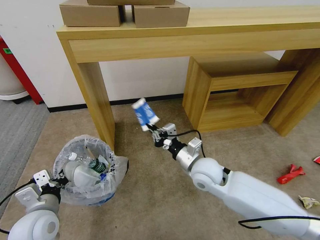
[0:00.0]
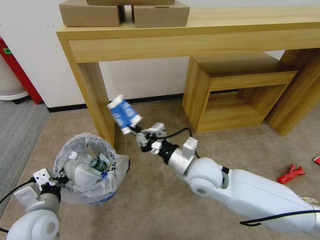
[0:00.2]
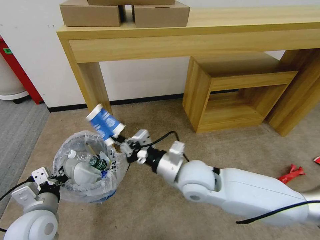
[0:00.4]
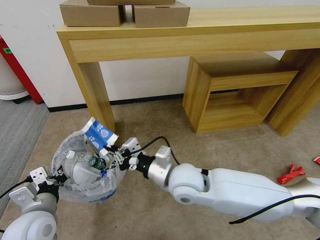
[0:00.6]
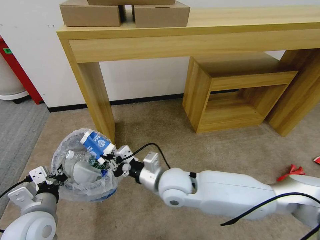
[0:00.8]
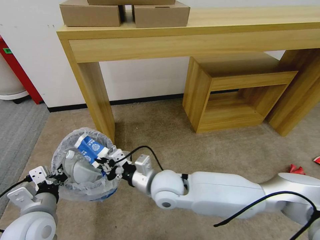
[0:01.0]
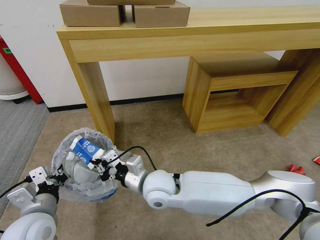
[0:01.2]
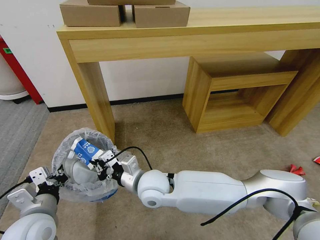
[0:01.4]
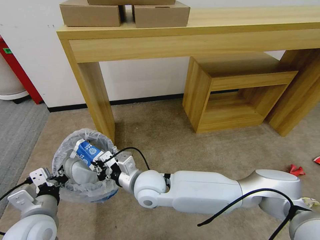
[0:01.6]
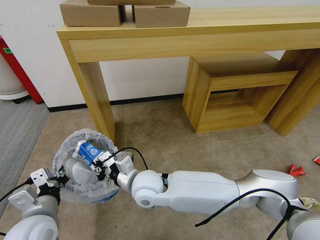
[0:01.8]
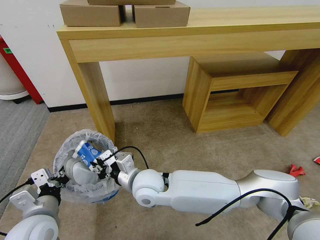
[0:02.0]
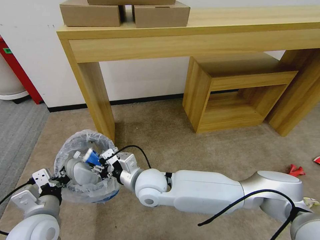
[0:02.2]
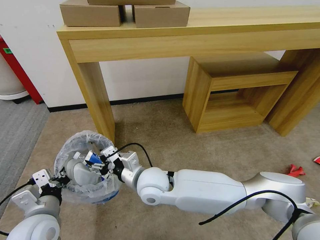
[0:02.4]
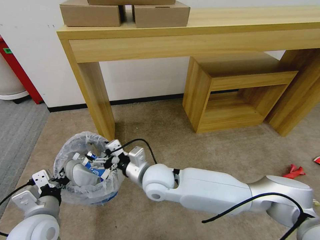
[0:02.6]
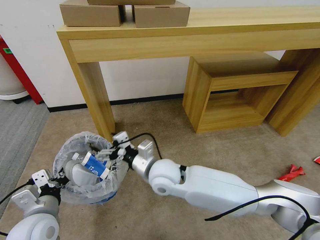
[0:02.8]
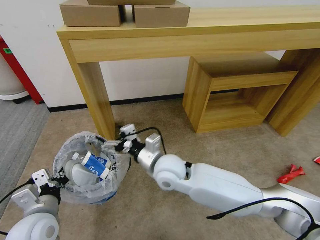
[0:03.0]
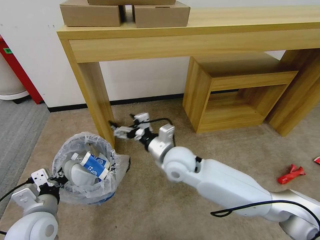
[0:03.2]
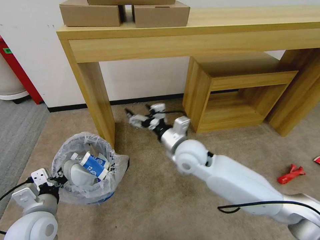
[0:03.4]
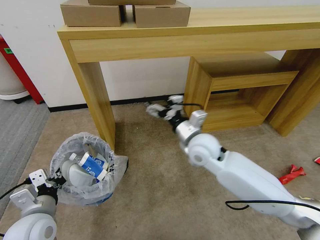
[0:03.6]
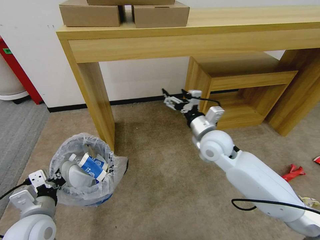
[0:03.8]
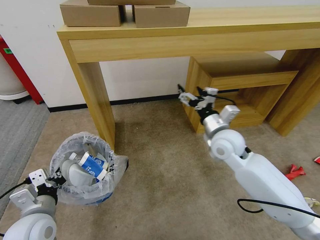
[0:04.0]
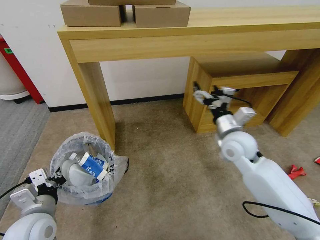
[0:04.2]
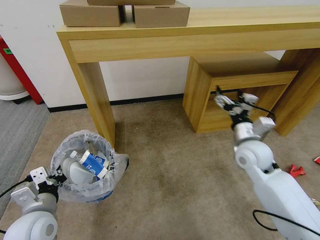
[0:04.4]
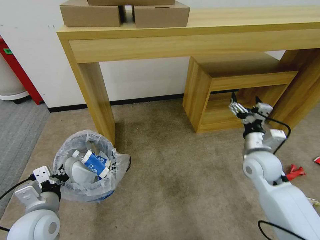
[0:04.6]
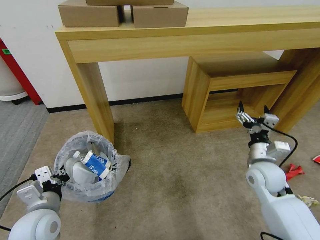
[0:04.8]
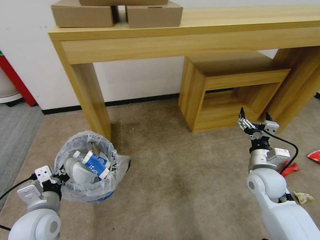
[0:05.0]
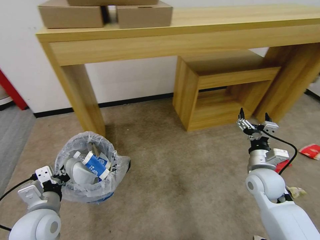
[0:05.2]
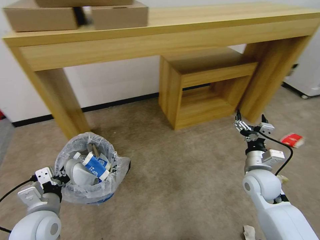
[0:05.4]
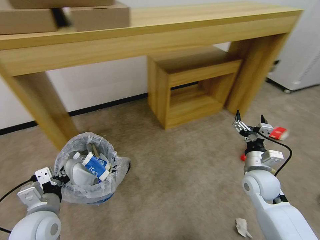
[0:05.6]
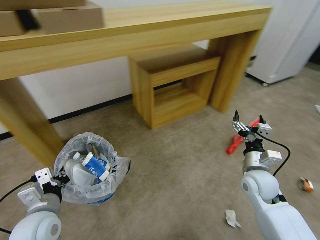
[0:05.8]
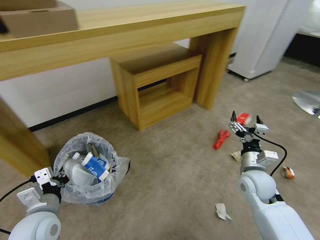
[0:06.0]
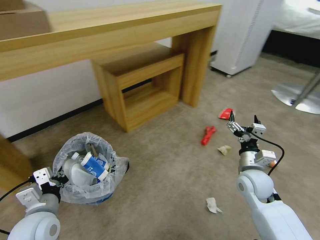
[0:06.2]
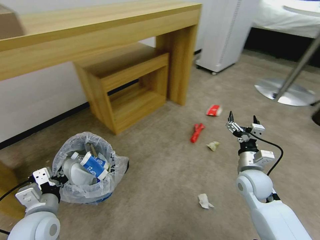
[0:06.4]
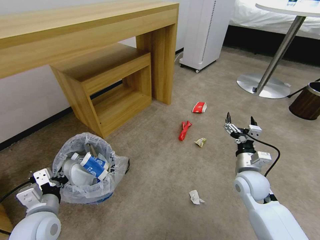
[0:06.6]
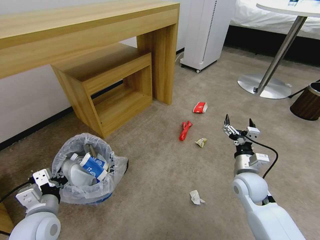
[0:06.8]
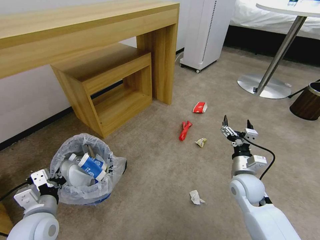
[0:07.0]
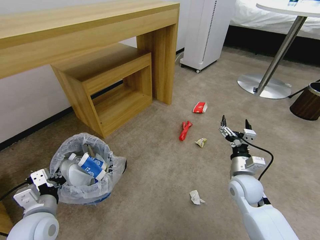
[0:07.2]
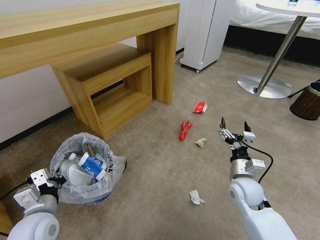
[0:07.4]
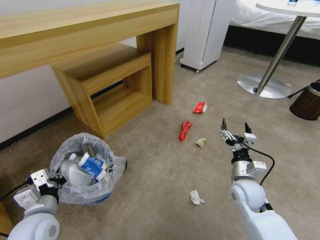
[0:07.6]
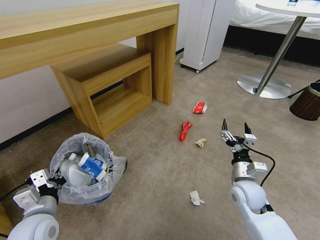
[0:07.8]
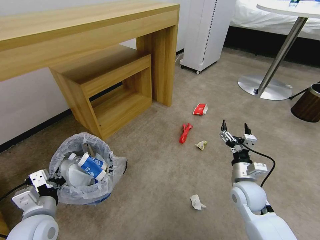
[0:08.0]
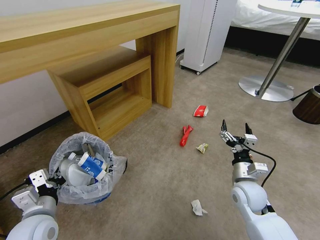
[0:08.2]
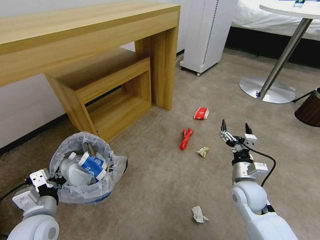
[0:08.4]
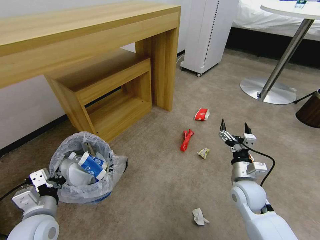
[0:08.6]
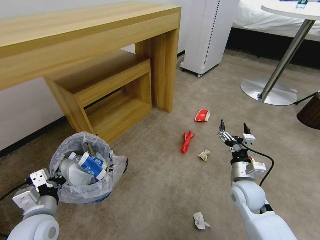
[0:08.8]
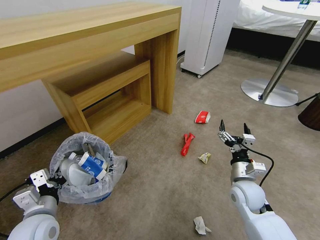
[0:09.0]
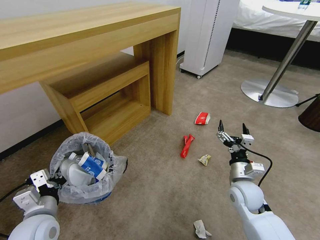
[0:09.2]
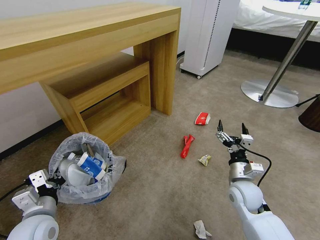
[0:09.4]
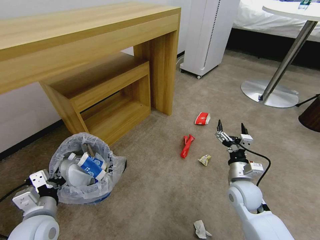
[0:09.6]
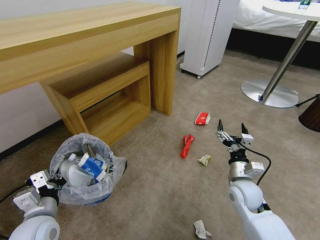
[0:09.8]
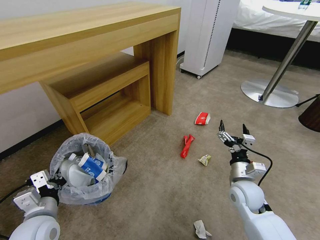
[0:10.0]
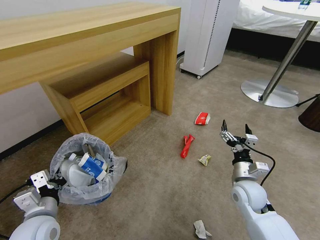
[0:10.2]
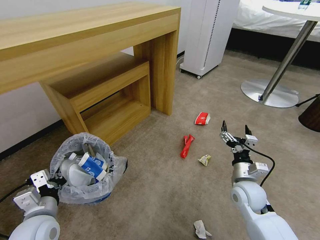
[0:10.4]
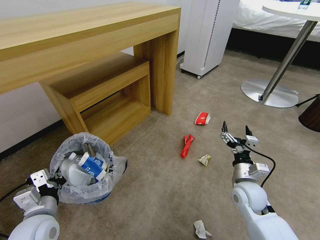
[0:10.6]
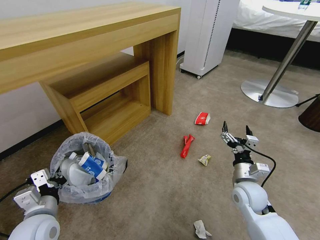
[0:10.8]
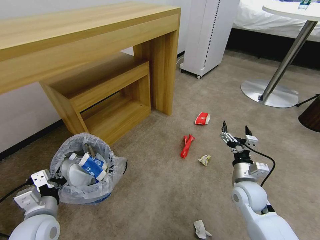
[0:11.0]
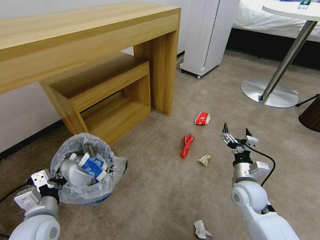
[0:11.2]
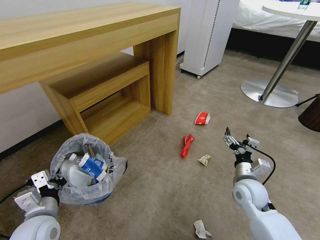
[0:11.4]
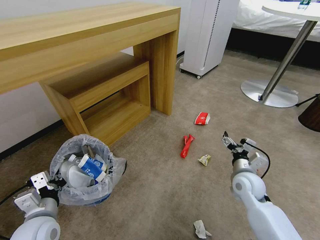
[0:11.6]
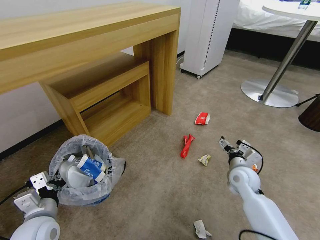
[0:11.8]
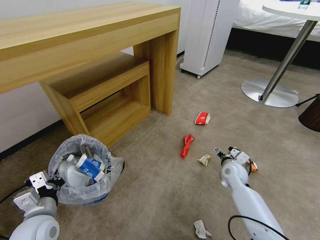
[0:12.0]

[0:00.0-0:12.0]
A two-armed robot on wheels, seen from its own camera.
Task of the whole recording: Pick up the trash bin and place the garbage on the floor into it.
0:00.0 to 0:01.6: The right gripper shifts approximately 15 cm to the left.
0:01.6 to 0:03.0: The right gripper goes roughly 5 cm to the right, and opens.
0:03.0 to 0:04.4: The right gripper shifts some 25 cm to the right.
0:04.4 to 0:06.0: The right gripper heads downward and backward, covering approximately 10 cm.
0:09.0 to 0:10.4: Both grippers stay about where they are.
0:10.4 to 0:12.0: The right gripper goes approximately 10 cm forward.

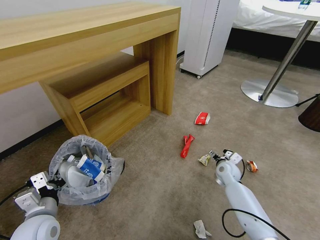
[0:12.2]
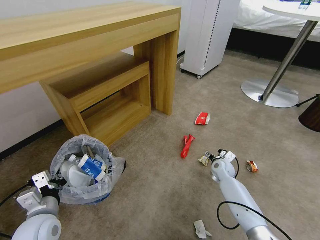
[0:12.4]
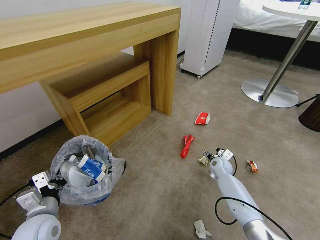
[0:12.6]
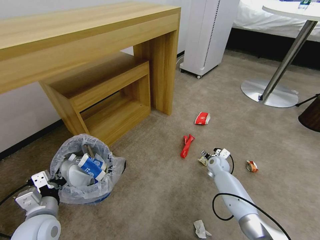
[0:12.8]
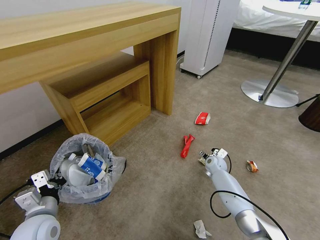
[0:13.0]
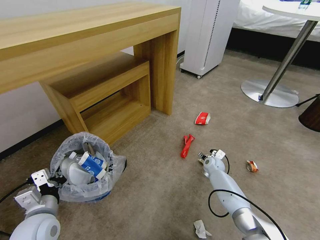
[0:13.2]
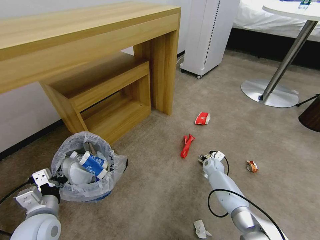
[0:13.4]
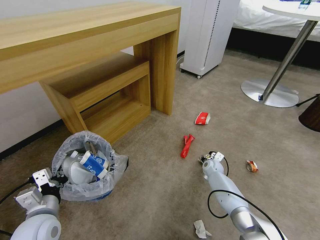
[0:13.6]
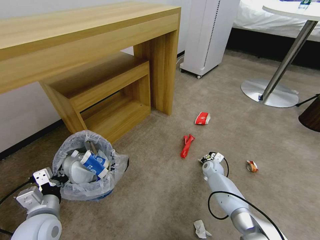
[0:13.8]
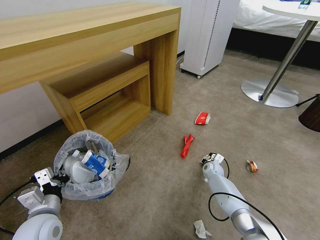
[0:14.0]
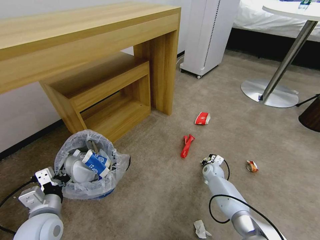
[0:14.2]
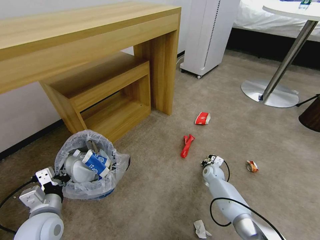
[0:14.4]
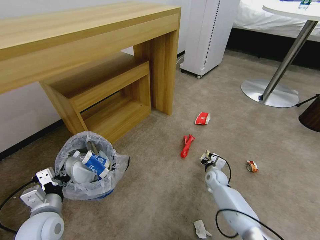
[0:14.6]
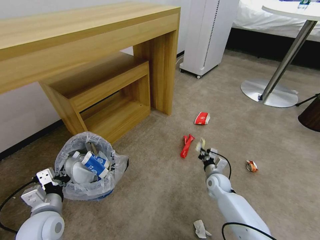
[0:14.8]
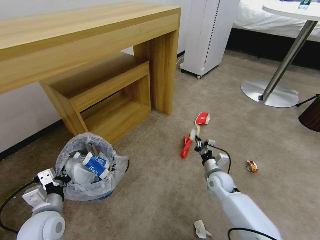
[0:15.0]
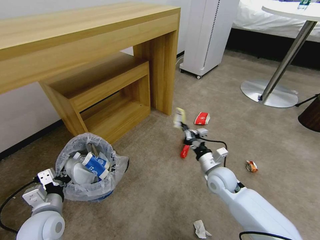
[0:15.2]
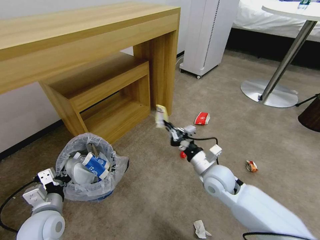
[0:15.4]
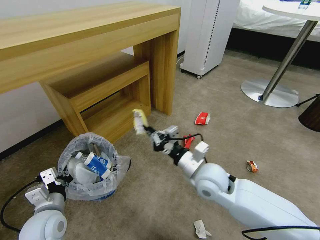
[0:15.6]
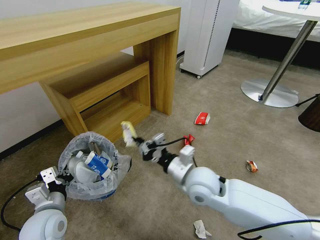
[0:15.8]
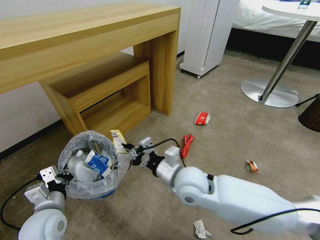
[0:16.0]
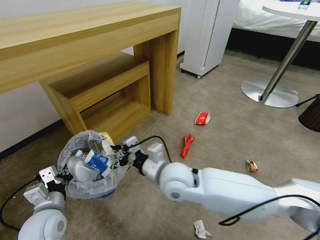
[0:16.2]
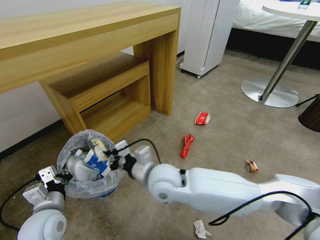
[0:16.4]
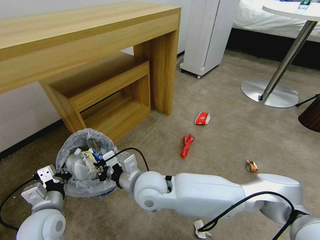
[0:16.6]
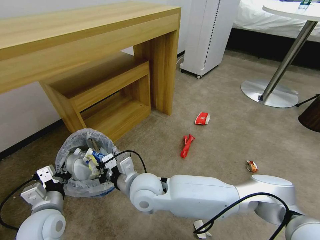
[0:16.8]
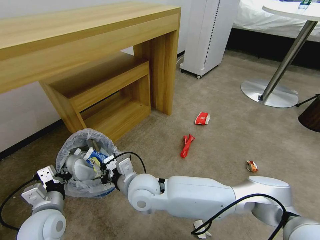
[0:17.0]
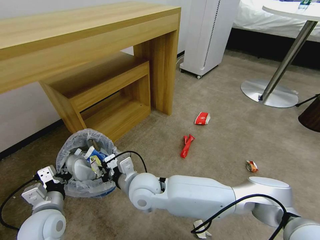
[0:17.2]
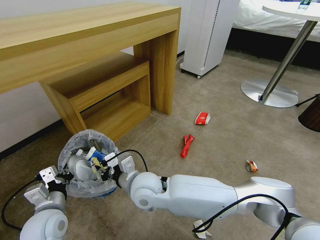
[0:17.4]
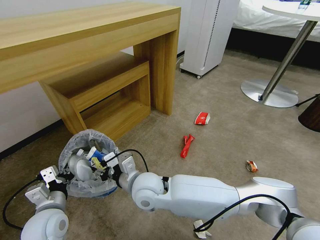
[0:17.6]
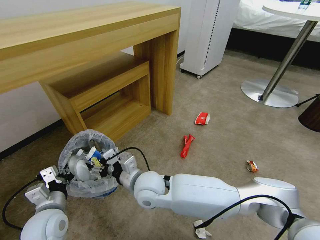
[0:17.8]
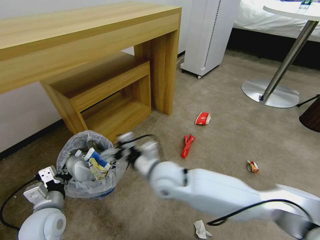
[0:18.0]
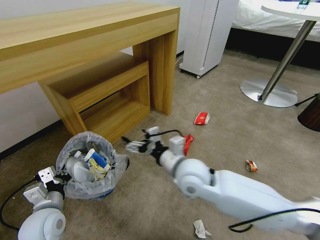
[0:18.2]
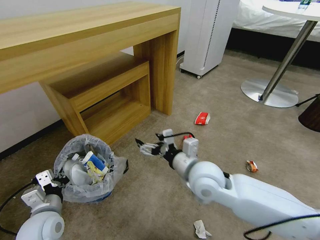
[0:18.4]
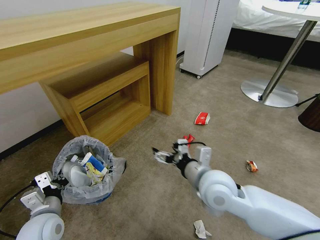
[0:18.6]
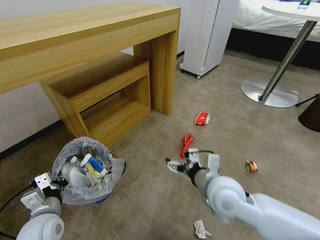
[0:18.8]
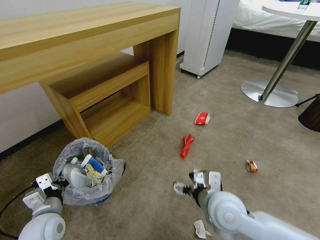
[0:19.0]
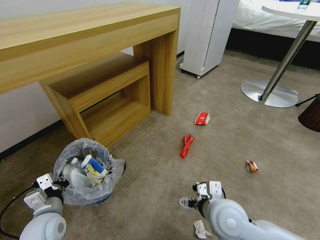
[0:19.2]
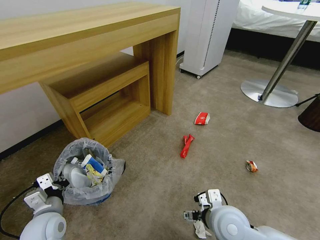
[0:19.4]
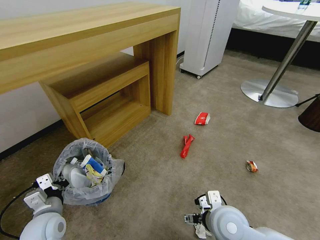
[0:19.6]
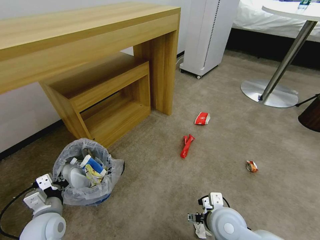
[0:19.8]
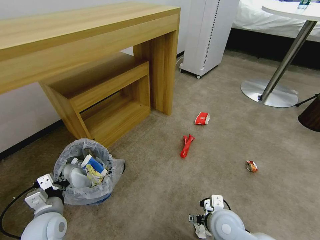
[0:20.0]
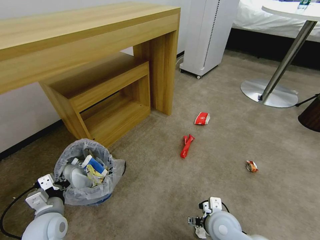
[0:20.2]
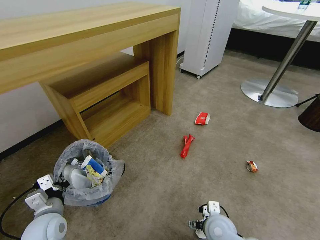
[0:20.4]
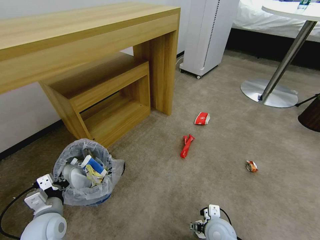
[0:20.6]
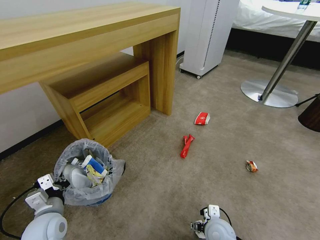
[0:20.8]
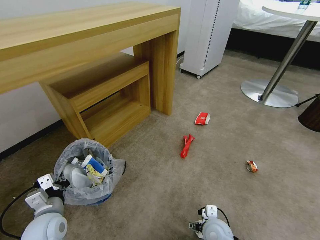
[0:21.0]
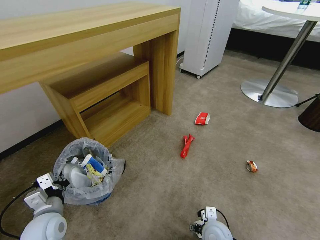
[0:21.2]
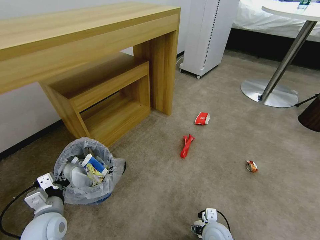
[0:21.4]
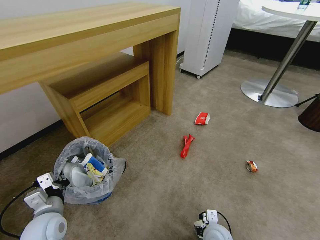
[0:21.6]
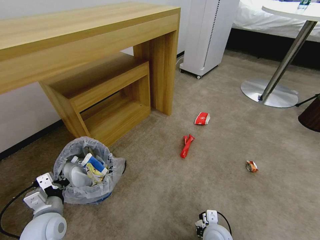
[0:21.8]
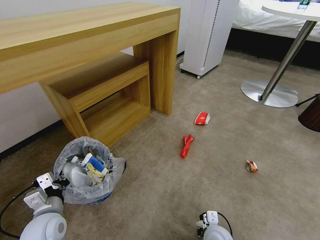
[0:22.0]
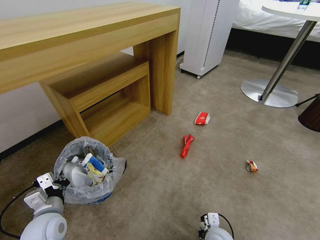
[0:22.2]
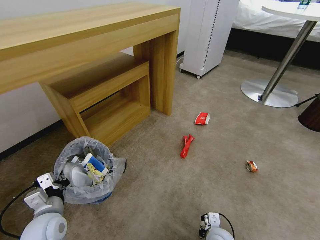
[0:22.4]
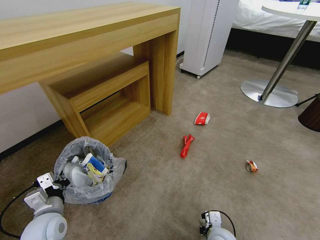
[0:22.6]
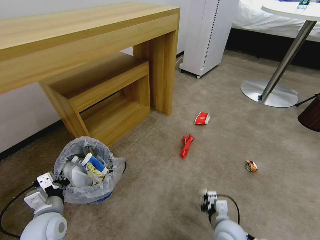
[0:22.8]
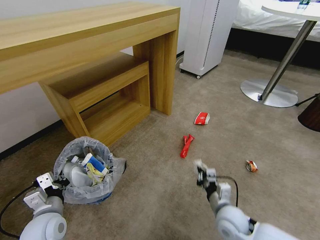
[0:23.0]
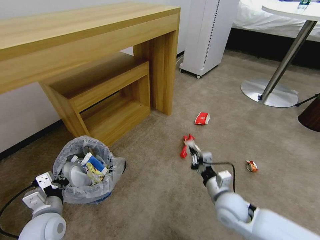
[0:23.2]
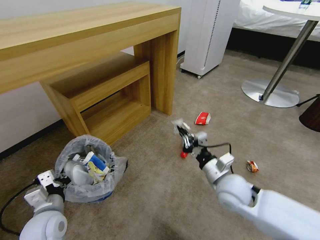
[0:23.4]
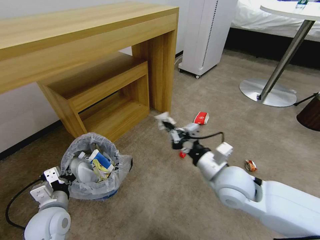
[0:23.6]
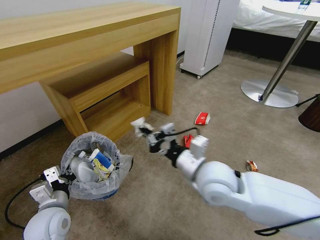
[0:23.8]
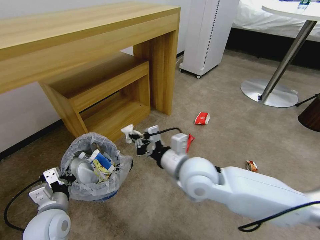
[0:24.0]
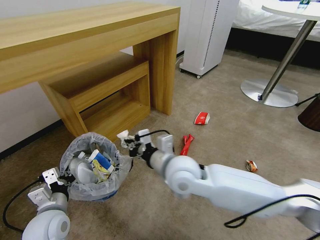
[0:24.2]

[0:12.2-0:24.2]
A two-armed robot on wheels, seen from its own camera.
Task of the whole recording: Pick up the trash bin and place the garbage on the floor into it.
0:12.2 to 0:13.8: The right gripper heads downward and forward, covering roughly 10 cm, and closes.
0:13.8 to 0:15.2: The right gripper moves upward and backward, some 20 cm, and closes up.
0:15.2 to 0:16.6: The right gripper shifts about 30 cm to the left and upward.
0:16.6 to 0:18.2: The right gripper goes approximately 10 cm to the right, and opens its fingers.
0:18.2 to 0:19.8: The right gripper moves to the right, backward and downward, approximately 20 cm.
0:19.8 to 0:21.2: The right gripper shifts approximately 10 cm downward.
0:21.2 to 0:22.6: The right gripper closes up.
0:22.6 to 0:24.2: The right gripper goes approximately 30 cm upward, to the left and forward.
